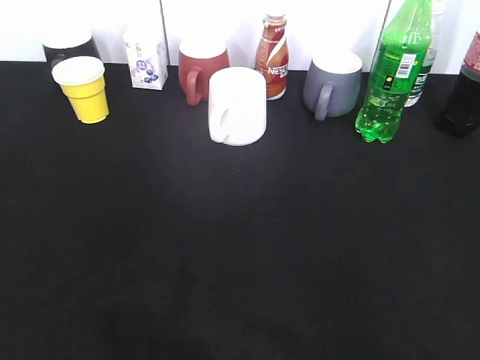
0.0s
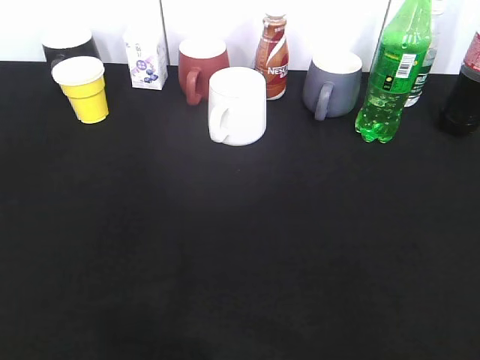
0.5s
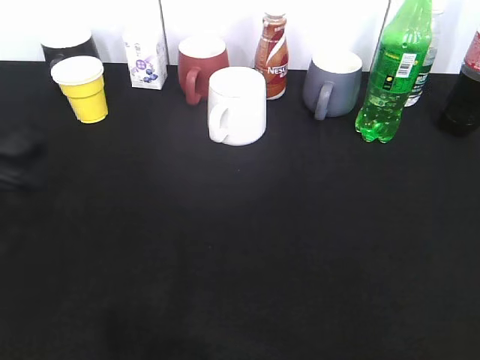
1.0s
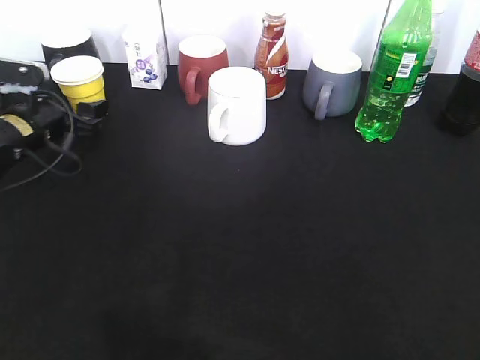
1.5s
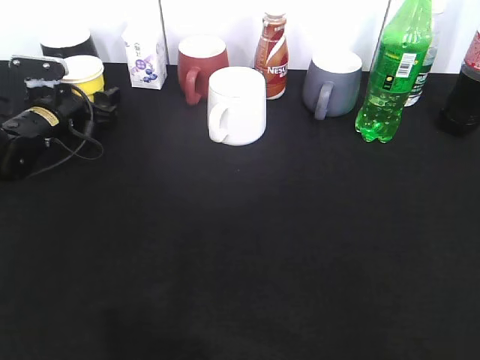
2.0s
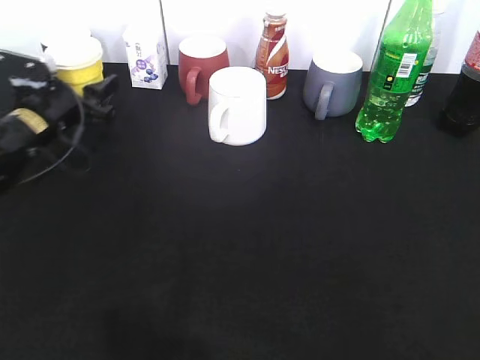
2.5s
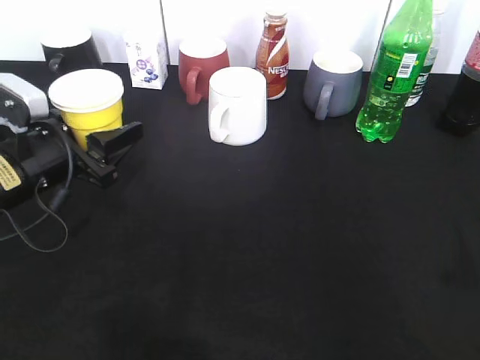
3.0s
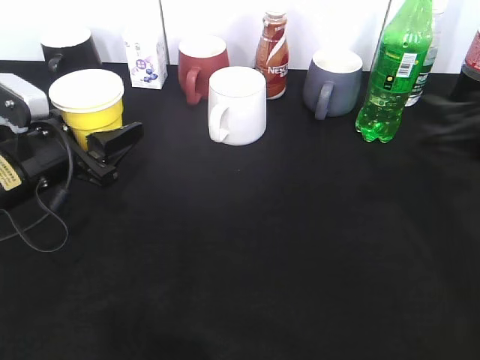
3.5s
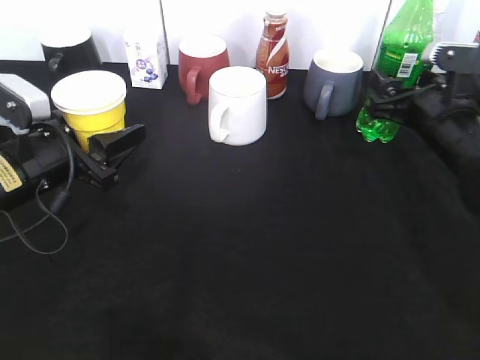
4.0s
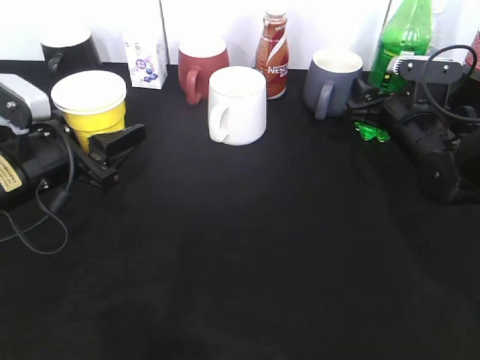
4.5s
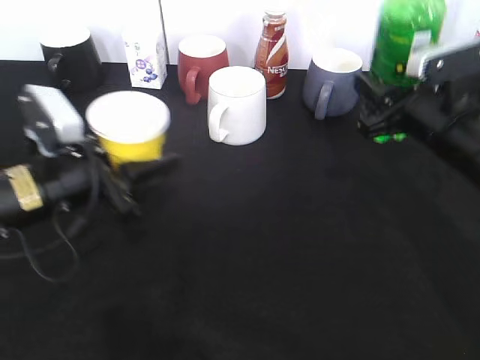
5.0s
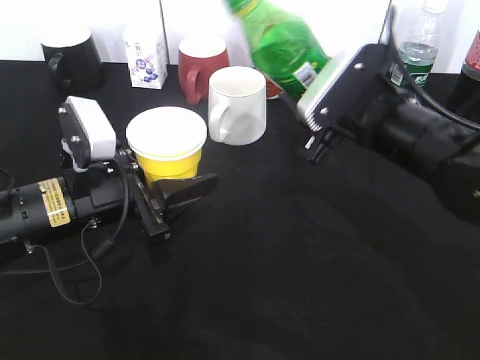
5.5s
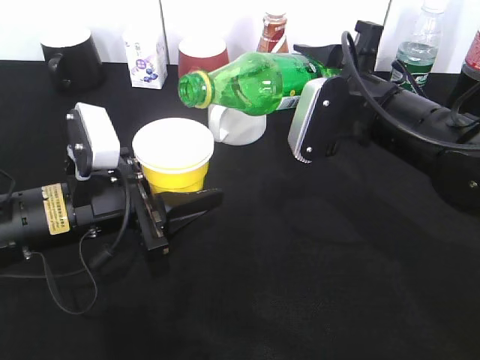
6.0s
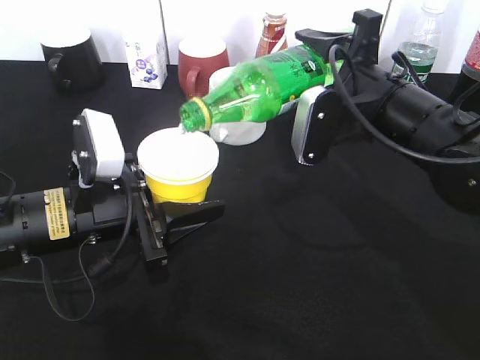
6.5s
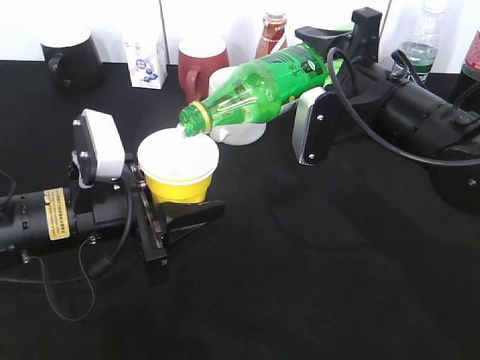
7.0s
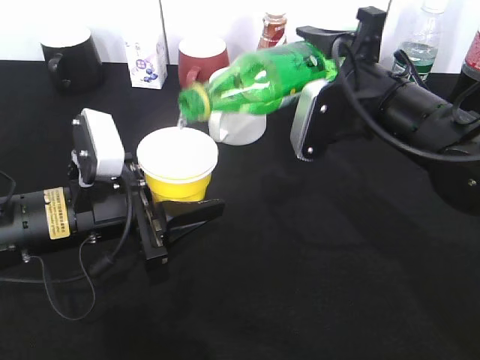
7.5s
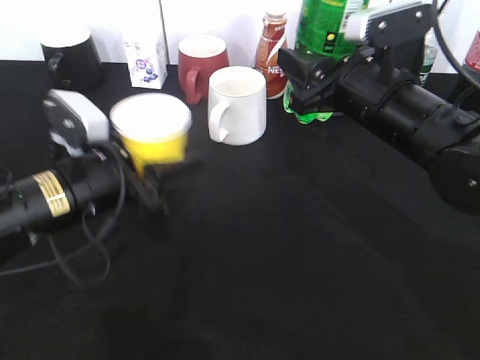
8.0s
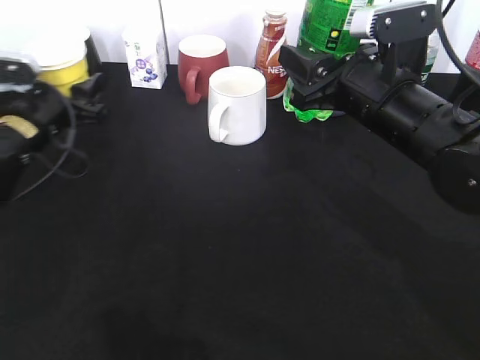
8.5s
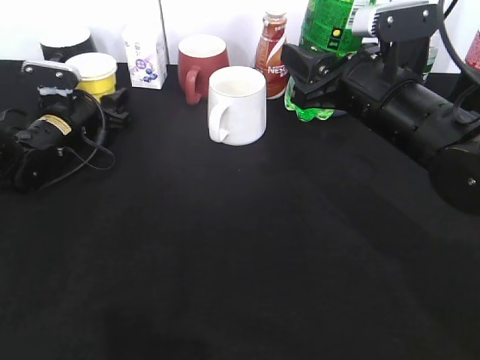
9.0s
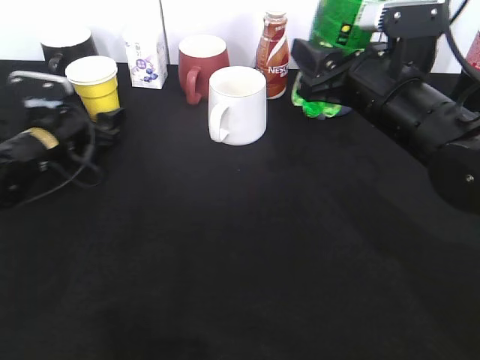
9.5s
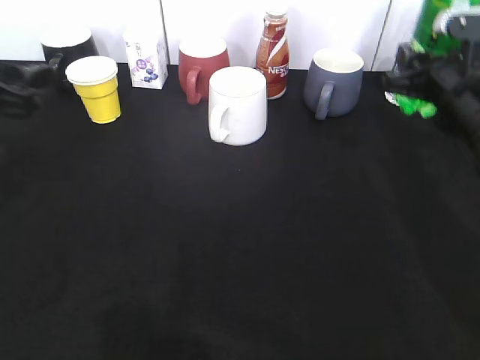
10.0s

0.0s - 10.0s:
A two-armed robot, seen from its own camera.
Step, 0.0s - 2.0s: Grasp the yellow paper cup with left gripper.
Step, 2.5s - 3.0s: Lift the yellow paper cup with left gripper.
Step, 3.5s - 4.5s: Grasp the bottle with sprite with right gripper.
Step, 5.0s - 7.5s: Pour the sprite from bottle to cup with right gripper.
0.0s - 2.0s: The left gripper moves forward and downward, approximately 50 cm.
2.0s - 4.0s: The right gripper goes about 35 cm forward, and opens up. Meanwhile the left gripper moves backward, approximately 15 cm, and closes up.
4.0s - 6.0s: The right gripper shifts roughly 10 cm to the left, and closes. Meanwhile the left gripper is displaced to the right by some 5 cm.
8.0s - 10.0s: The right gripper travels to the right by about 10 cm; the left gripper goes roughly 15 cm to the left and upward, goes forward and returns, some 20 cm each way, and opens.

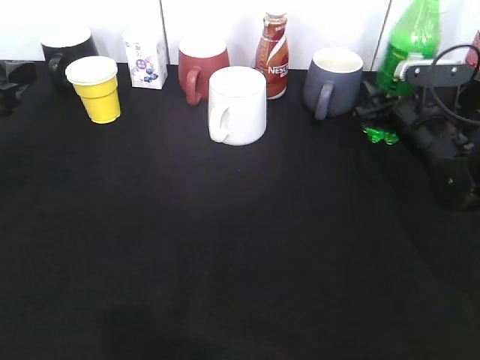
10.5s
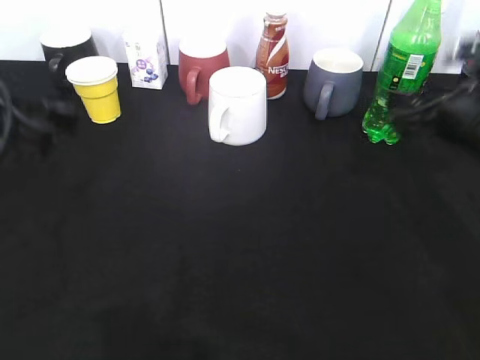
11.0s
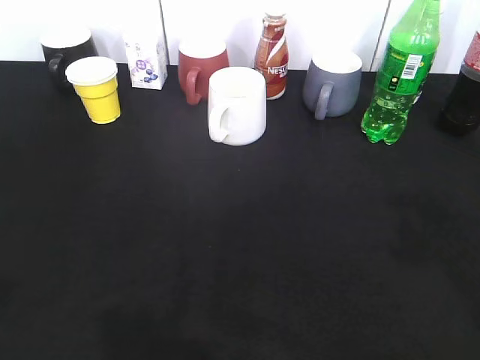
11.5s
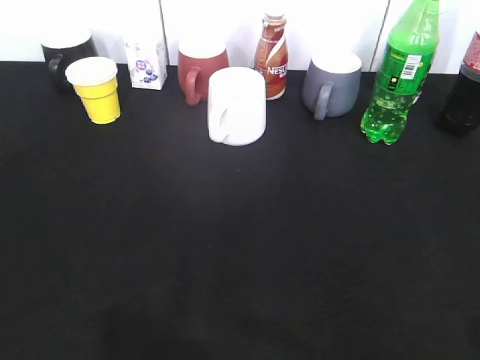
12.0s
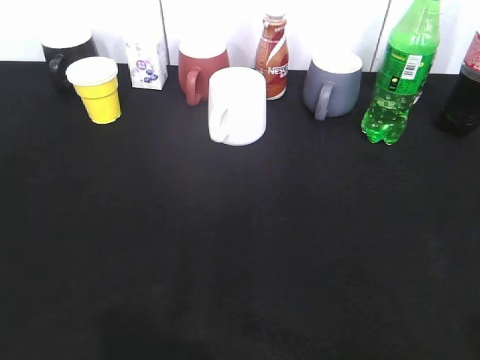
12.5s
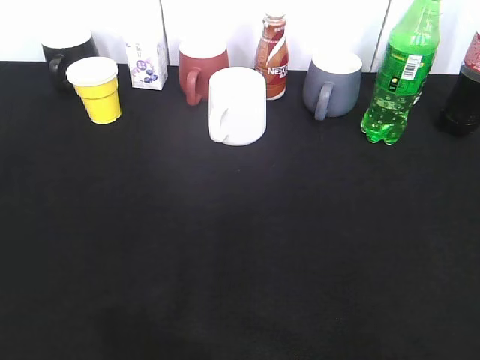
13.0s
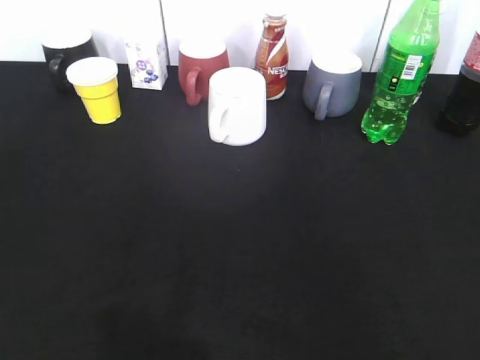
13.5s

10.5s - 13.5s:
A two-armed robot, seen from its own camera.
10.5s - 12.0s: The left gripper moves backward, approximately 25 cm, while the right gripper heads backward and upward, covering about 40 cm.
